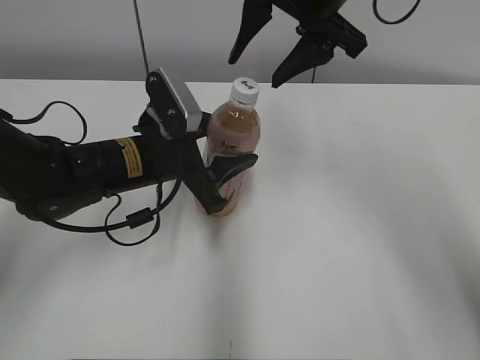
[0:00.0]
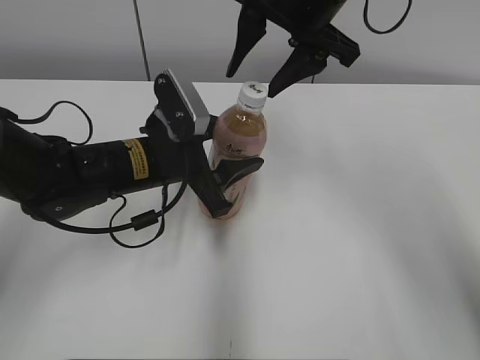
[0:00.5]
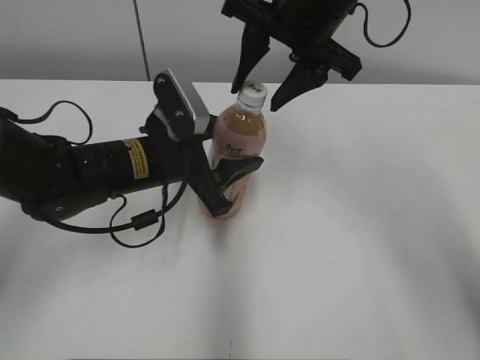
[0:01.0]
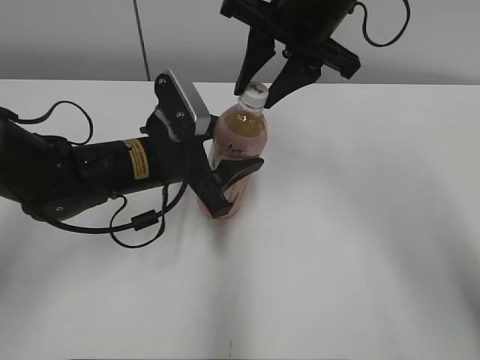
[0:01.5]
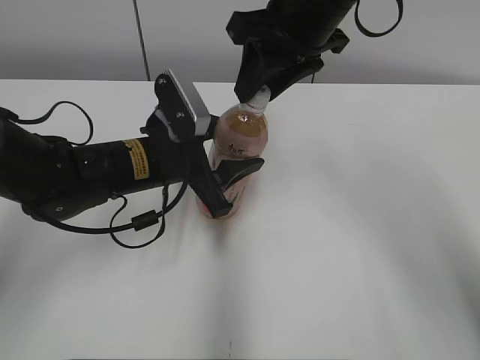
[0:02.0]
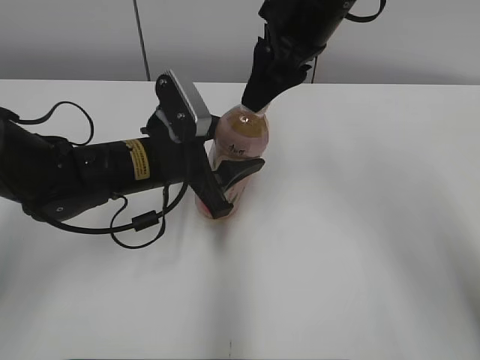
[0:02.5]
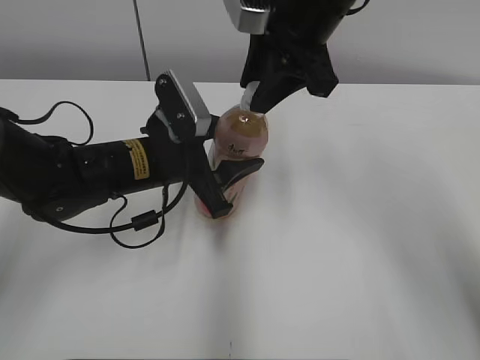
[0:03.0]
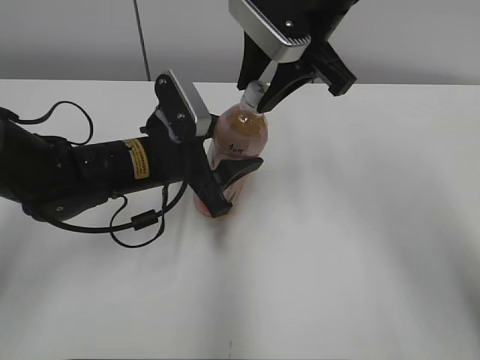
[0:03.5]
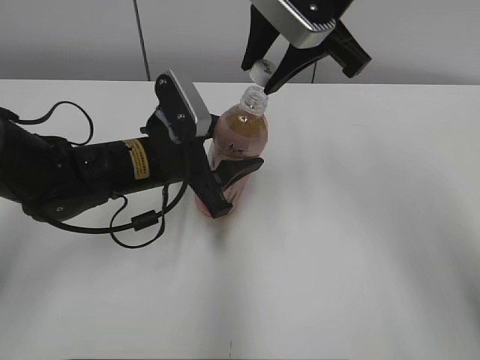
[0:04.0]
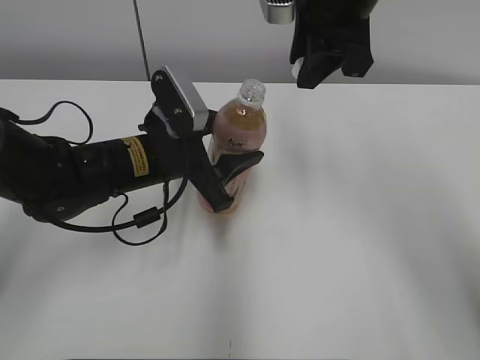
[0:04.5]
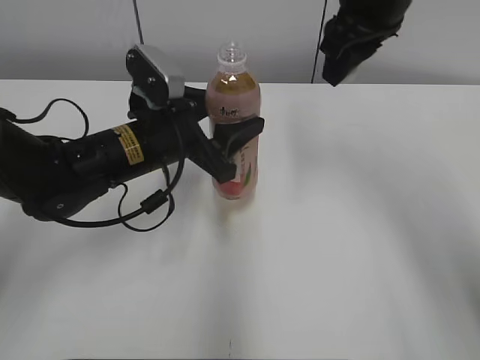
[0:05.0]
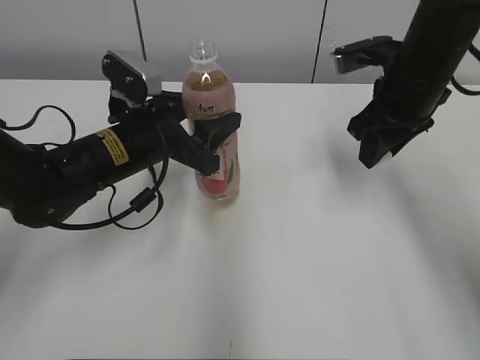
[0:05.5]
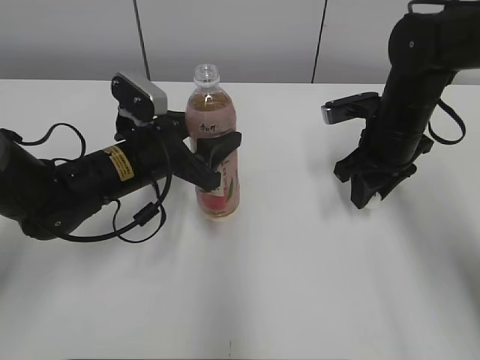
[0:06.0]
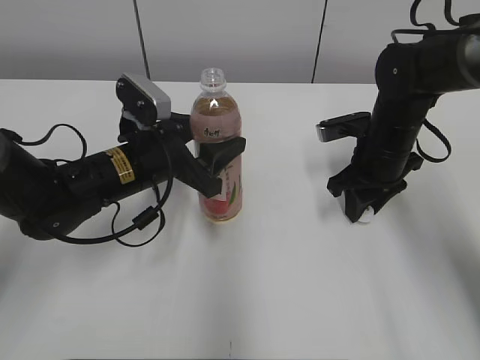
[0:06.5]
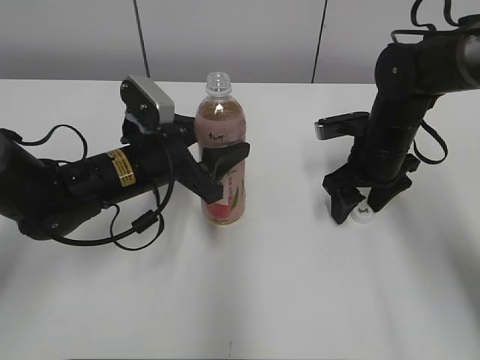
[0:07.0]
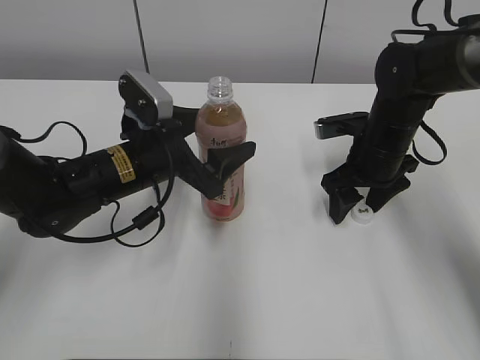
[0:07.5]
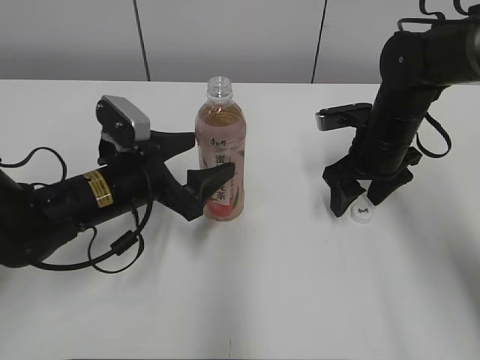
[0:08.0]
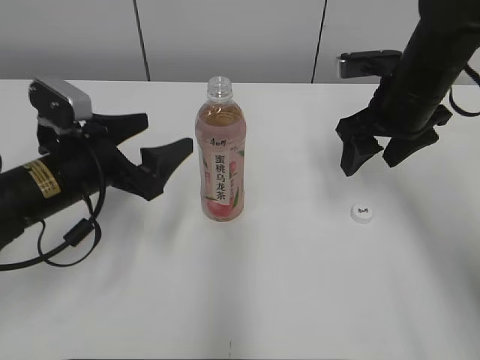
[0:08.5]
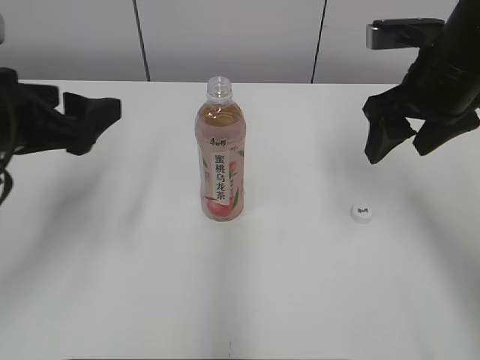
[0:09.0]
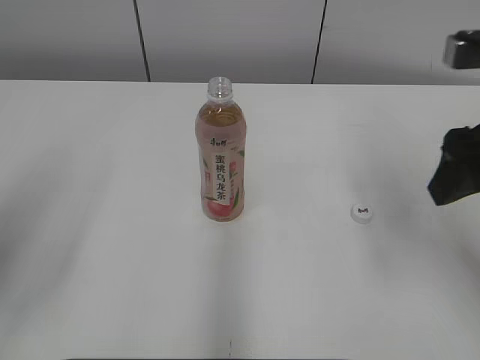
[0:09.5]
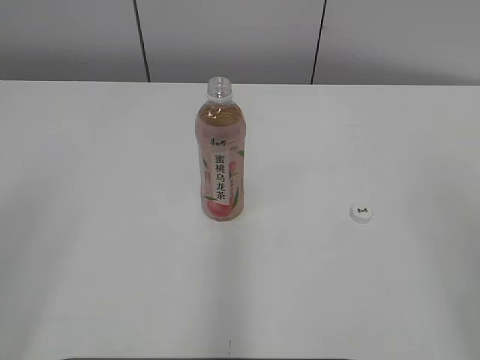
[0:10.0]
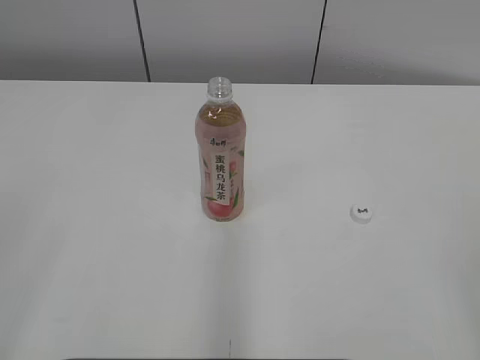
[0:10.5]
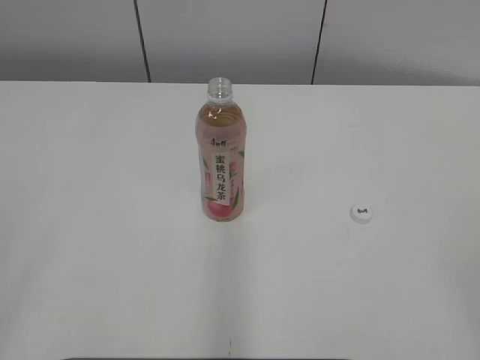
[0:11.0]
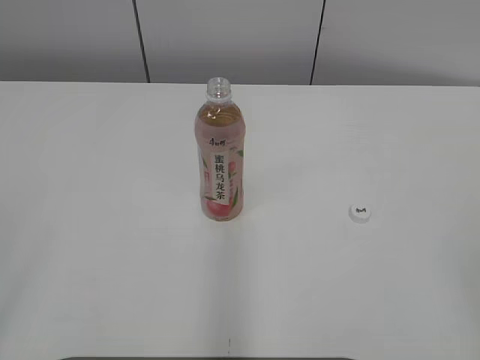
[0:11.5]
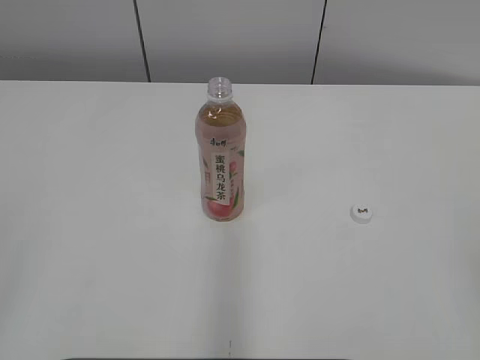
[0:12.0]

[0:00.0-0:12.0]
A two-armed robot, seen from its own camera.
Step, 0:04.5 to 0:07.5: Place the bottle cap on the right.
Step, 0:08.0 to 0:08.5: Place the Peach Oolong Tea with the left hand.
0:00.0 to 0:02.0: The right gripper closes up.
0:04.0 to 0:06.0: The right gripper goes about 20 cm downward and to the right.
0:06.0 to 0:08.0: The right gripper opens; the left gripper opens up.
0:08.0 to 0:10.0: The left gripper shifts approximately 35 cm backward, upward and to the left. The right gripper moves backward and upward, roughly 35 cm.
